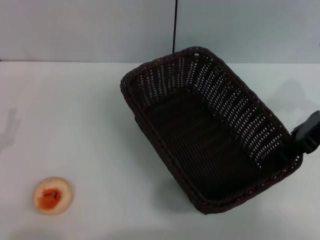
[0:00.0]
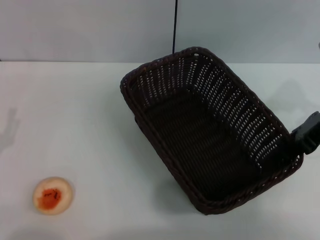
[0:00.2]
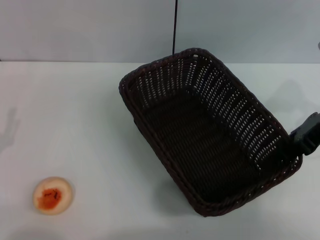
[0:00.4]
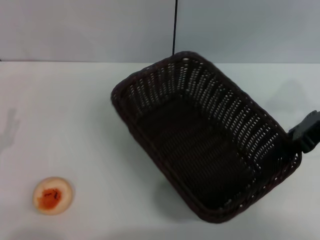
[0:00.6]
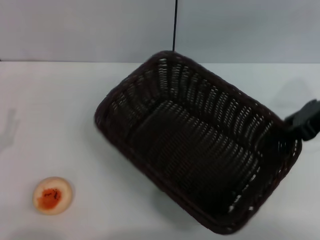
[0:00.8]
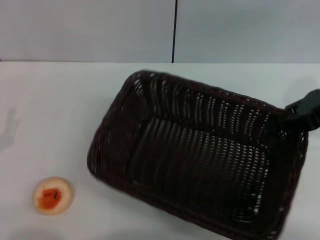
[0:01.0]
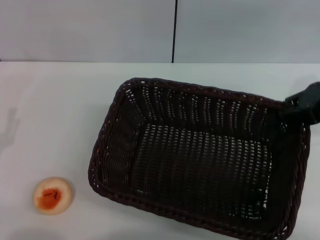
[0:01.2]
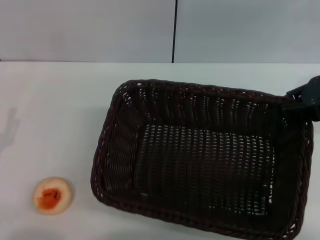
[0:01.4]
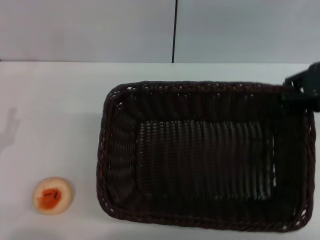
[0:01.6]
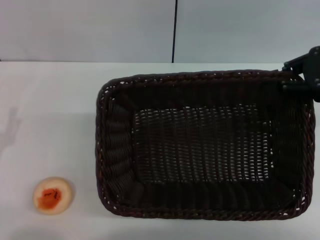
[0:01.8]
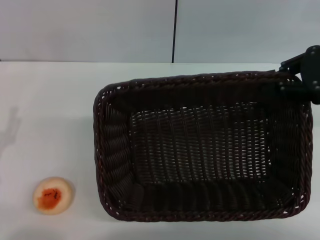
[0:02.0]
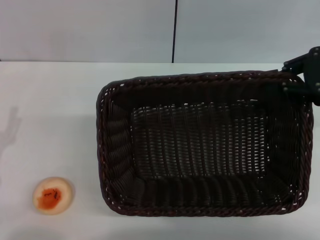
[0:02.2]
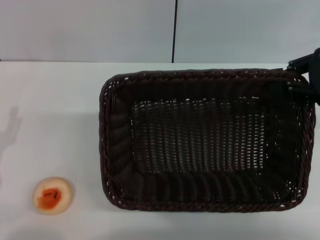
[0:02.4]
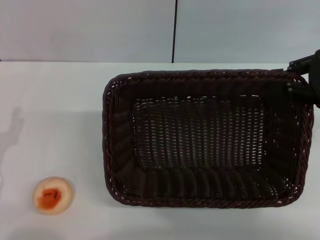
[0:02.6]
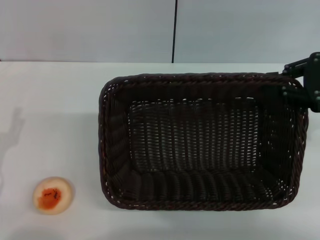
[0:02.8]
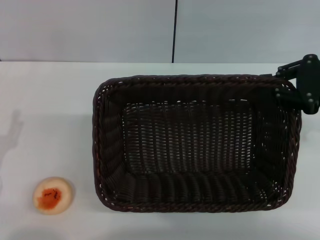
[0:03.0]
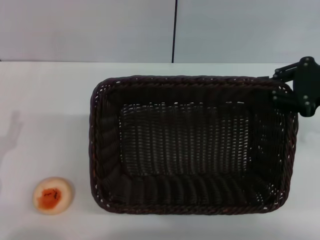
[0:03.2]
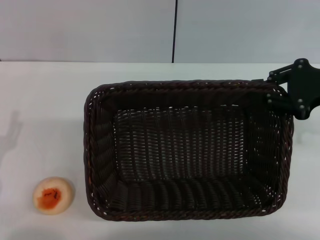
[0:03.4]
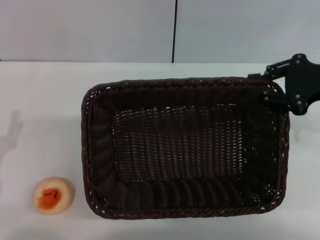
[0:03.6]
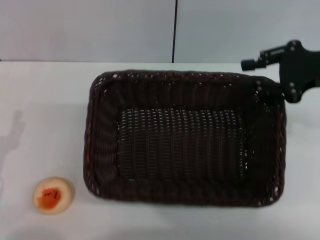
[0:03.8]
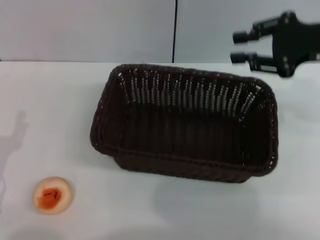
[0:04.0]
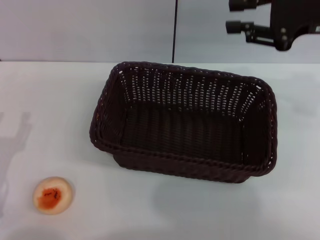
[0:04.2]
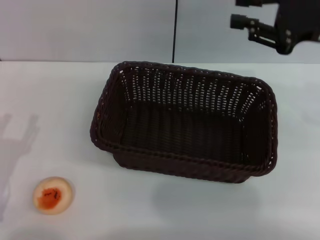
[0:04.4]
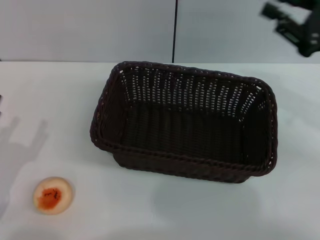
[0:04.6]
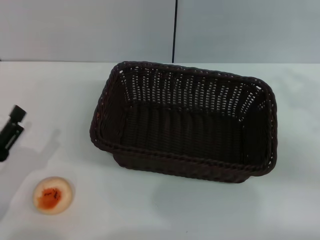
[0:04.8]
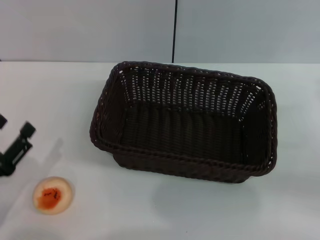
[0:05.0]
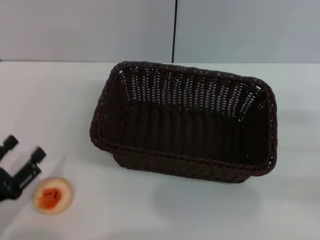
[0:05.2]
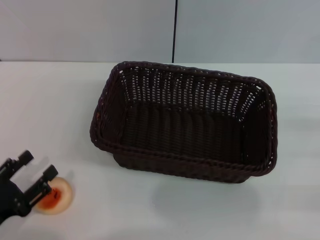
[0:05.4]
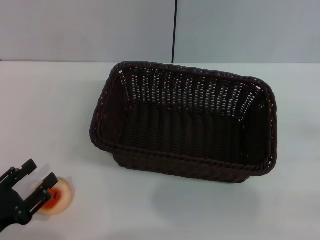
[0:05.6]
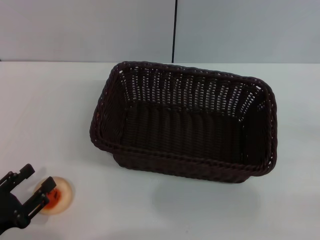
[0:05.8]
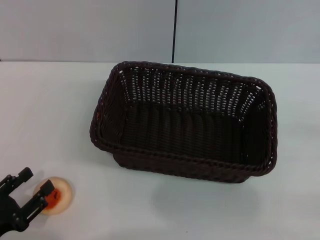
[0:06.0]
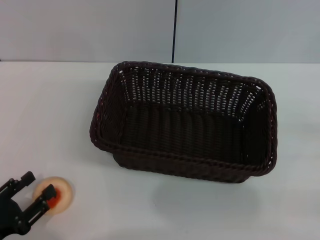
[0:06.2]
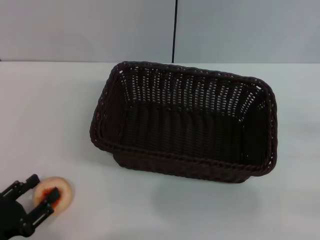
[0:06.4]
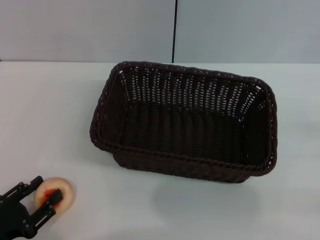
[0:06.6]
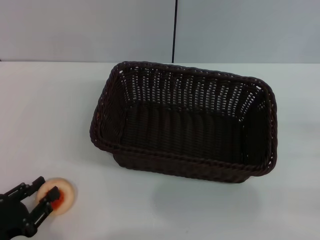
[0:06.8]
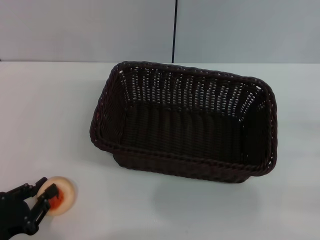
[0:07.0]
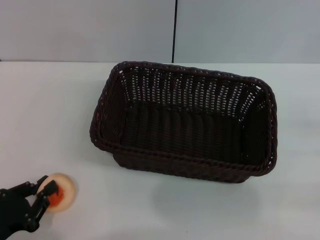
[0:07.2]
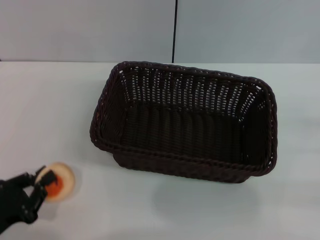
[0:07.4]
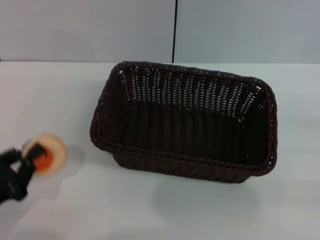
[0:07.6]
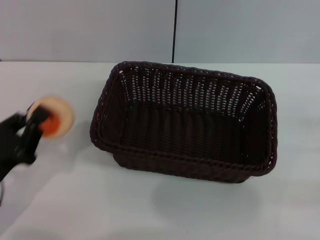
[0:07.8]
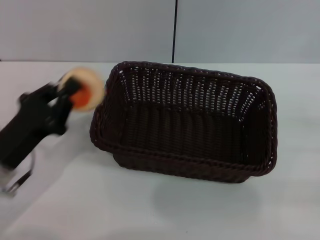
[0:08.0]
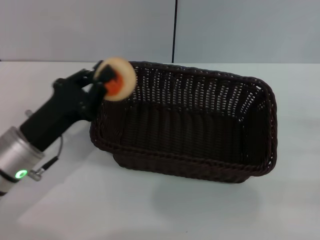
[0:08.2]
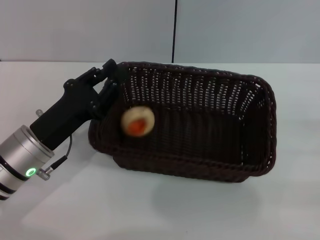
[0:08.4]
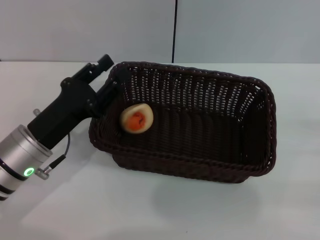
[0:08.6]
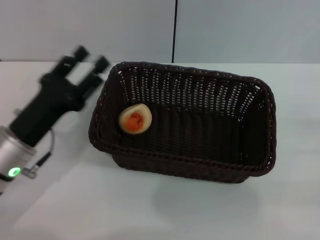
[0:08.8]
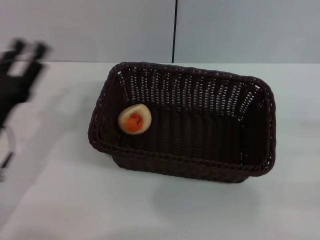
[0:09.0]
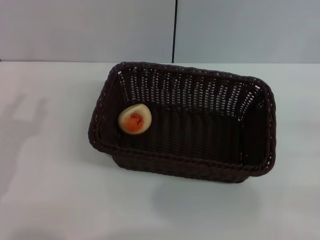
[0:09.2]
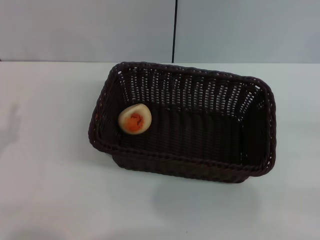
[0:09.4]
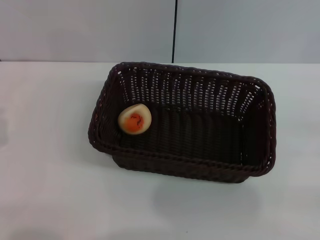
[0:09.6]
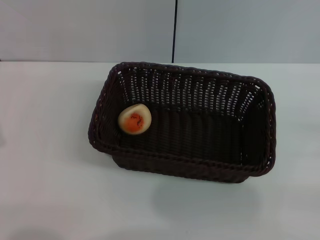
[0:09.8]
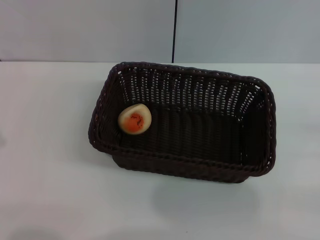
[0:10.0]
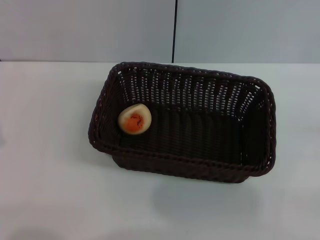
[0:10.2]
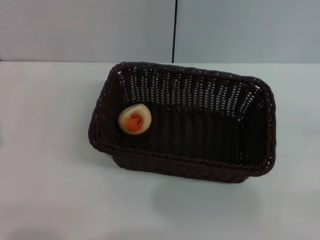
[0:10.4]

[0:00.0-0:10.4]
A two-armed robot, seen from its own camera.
Step, 0:00.0 to 0:04.0: Move the basket to the center of view with the right gripper.
Step, 0:04.2 to 0:07.4: Pick up the egg yolk pastry with the left gripper.
Step, 0:07.6 to 0:08.6: Place the egg yolk pastry into the basket with the left gripper.
0:00.0 to 0:01.4: The right gripper closes.
0:04.4 to 0:06.0: The left gripper is displaced backward by some 5 cm, while the right gripper goes some 25 cm backward, to the right and downward, and opens its fingers.
0:06.0 to 0:07.4: The left gripper closes up.
0:07.4 to 0:09.0: The left gripper travels forward by some 10 cm, and opens.
0:09.0 to 0:10.4: The left gripper travels to the left and backward by approximately 10 cm, and closes its fingers.
